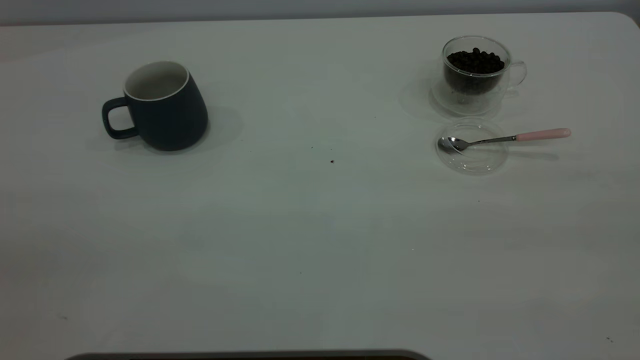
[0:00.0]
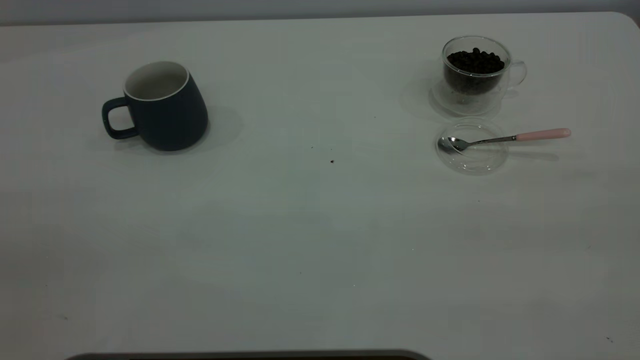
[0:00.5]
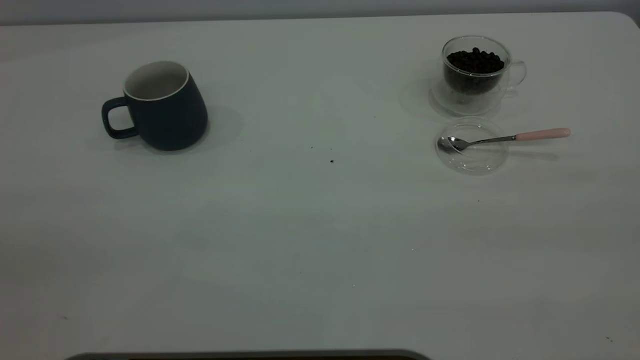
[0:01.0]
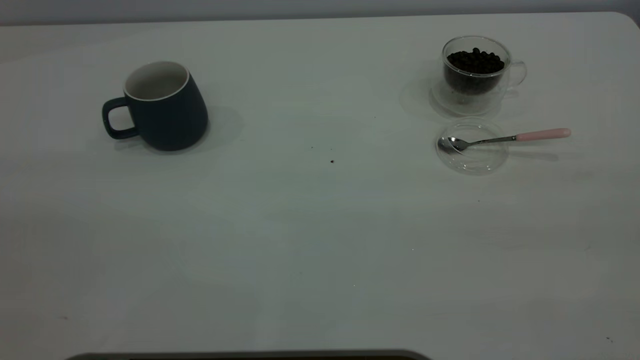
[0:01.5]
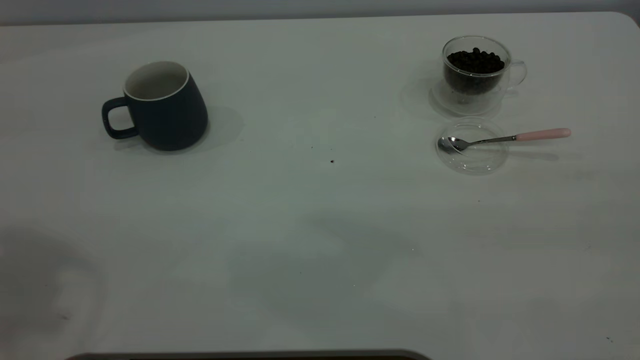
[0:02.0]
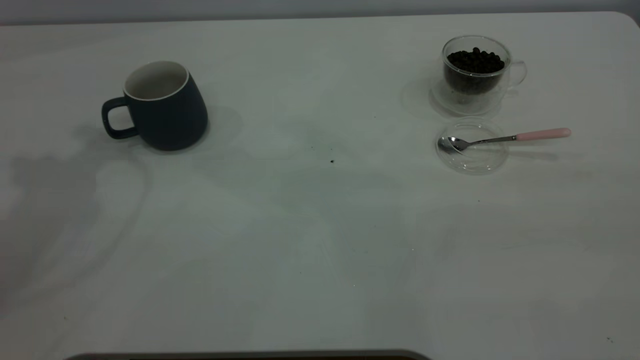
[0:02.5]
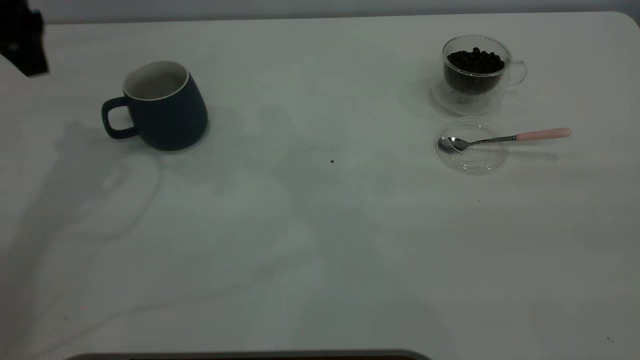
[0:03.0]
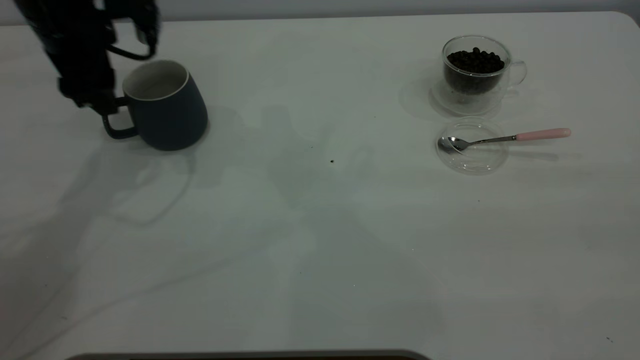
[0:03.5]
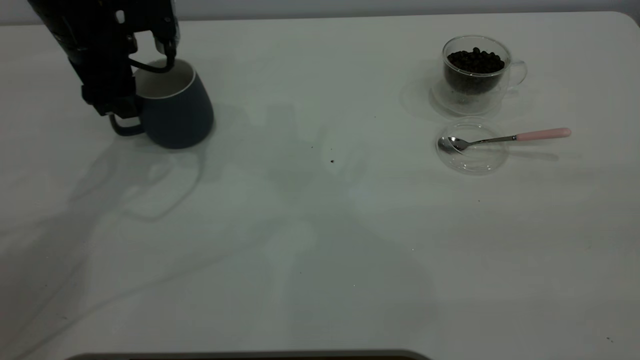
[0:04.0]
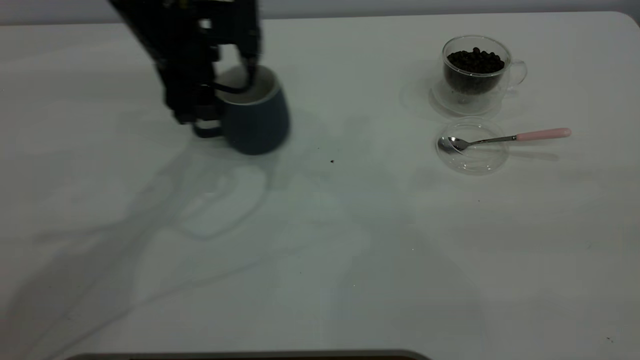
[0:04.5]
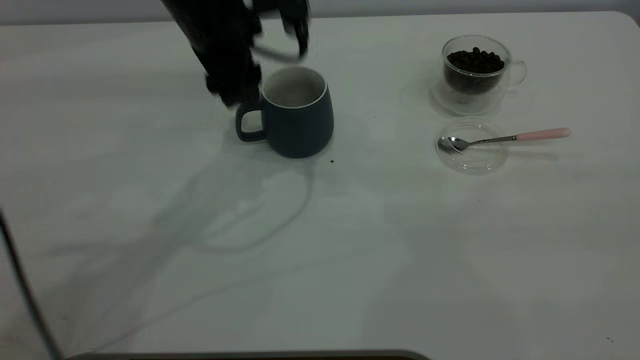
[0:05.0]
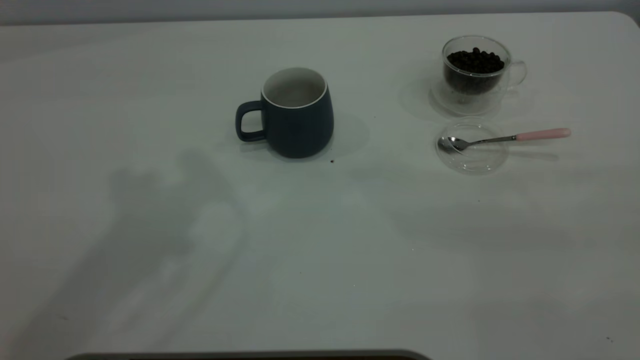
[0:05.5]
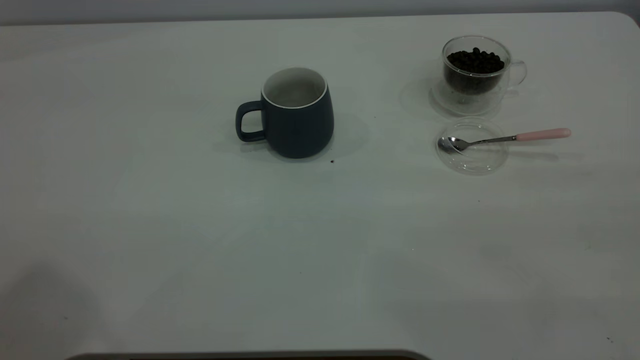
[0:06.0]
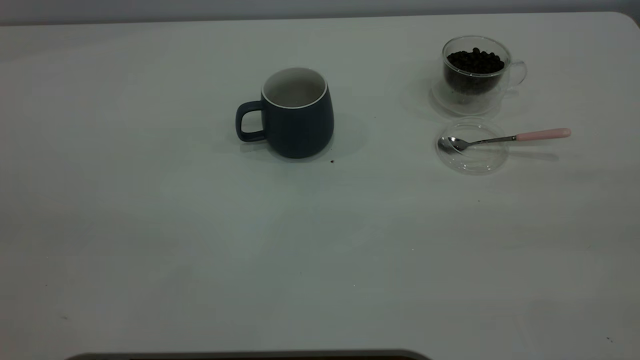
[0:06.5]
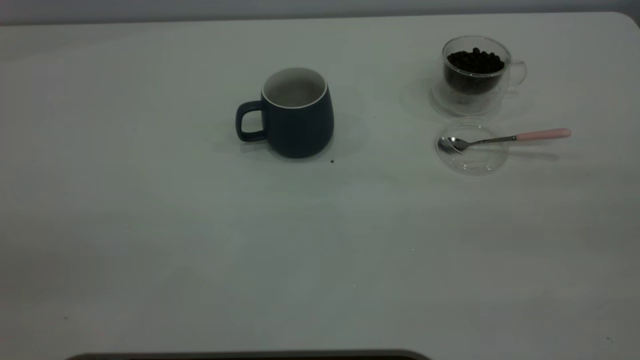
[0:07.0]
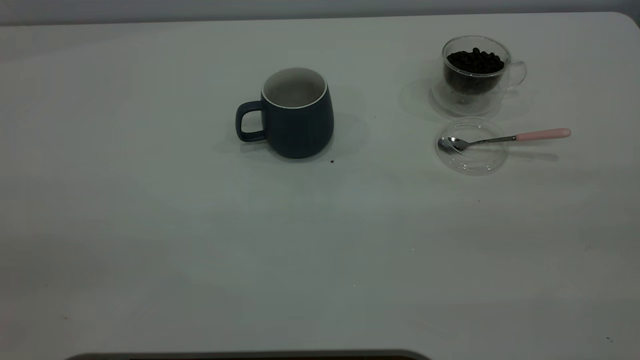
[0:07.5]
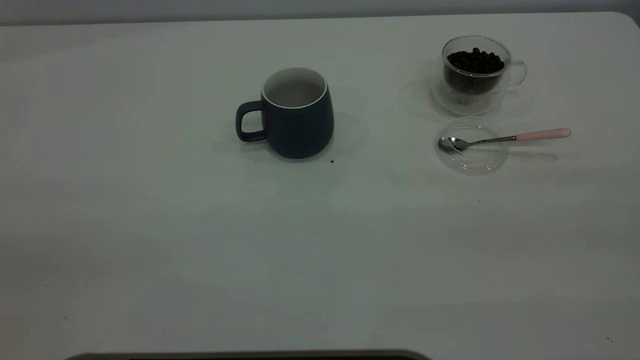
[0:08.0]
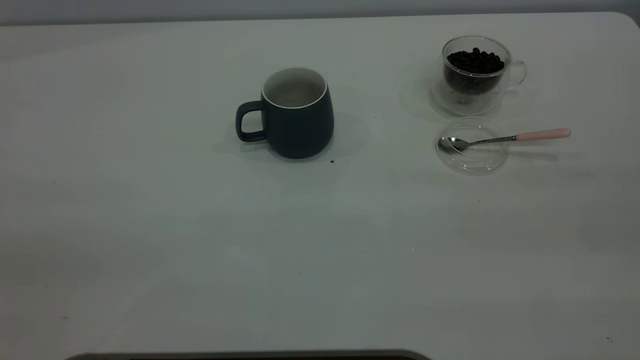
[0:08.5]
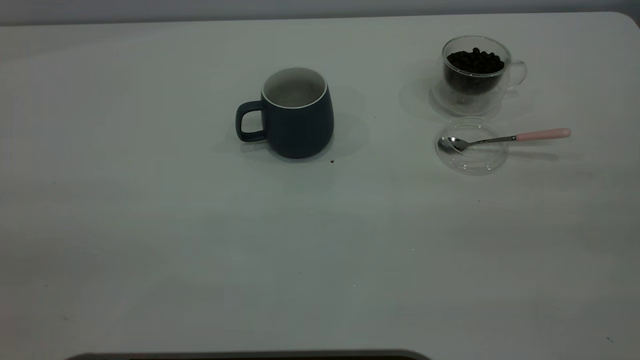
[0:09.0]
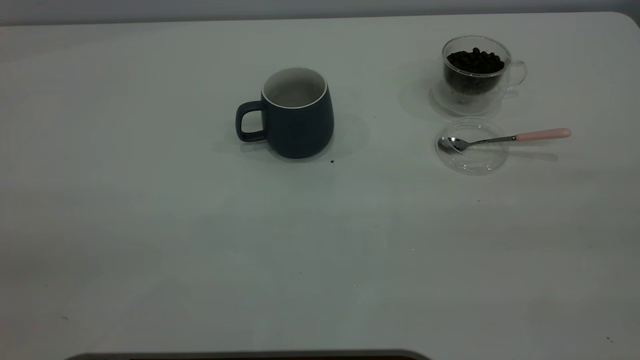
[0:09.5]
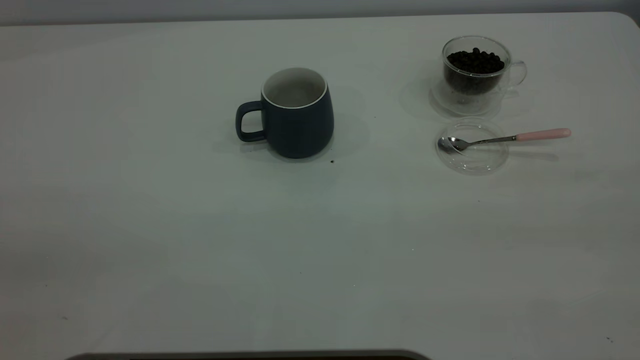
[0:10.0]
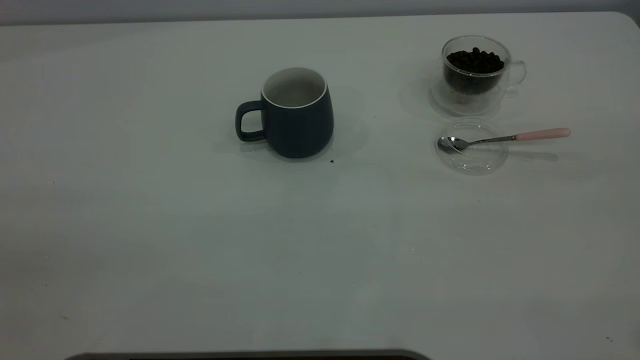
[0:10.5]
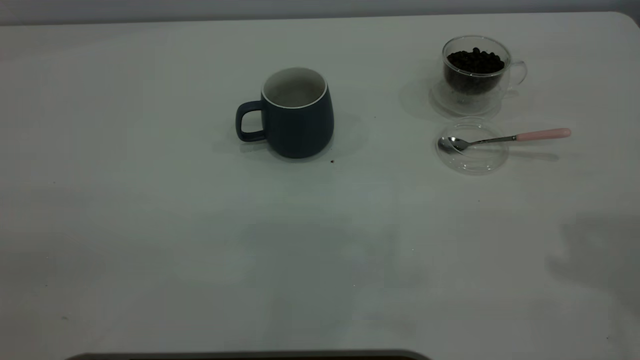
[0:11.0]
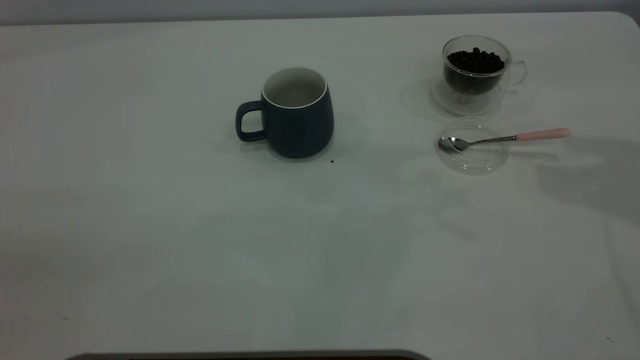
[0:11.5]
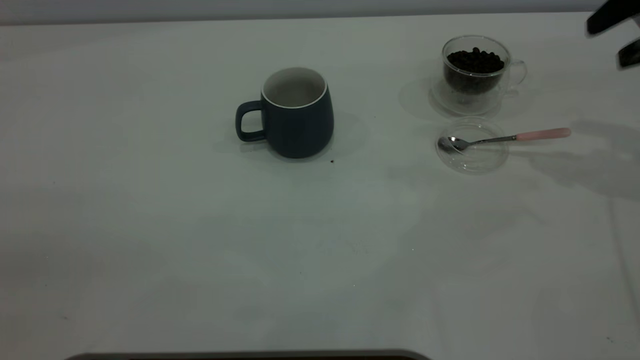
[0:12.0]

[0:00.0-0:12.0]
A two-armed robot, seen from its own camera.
Task of the whole recording: the left gripper place the grey cup in the center of the table, the right gripper take the pink spoon from the cup lid and scoop out the coffee beans from the coffee cup and put them into the grey cup, the right gripper put the spoon back into the cup lid.
Step, 0:00.0 to 0:05.0: Move the cup to the center of view.
0:02.0 to 0:04.0: The left gripper goes approximately 35 cm downward and forward.
0:04.0 to 0:06.0: The left gripper is displaced upward and backward by approximately 50 cm.
0:10.0 to 0:12.0: The right gripper goes about 40 cm forward and downward.

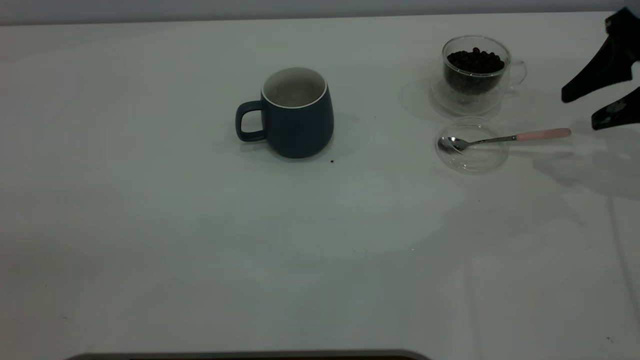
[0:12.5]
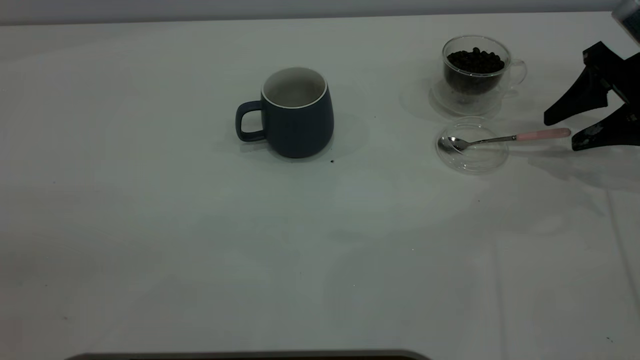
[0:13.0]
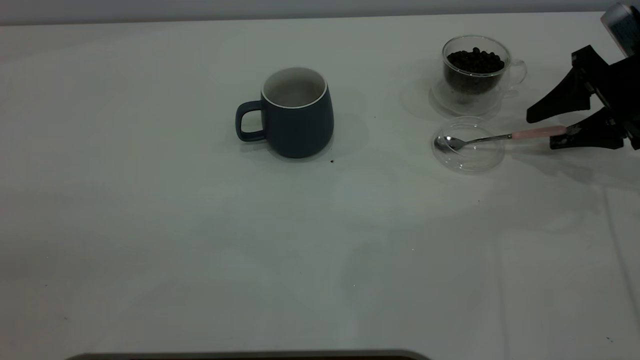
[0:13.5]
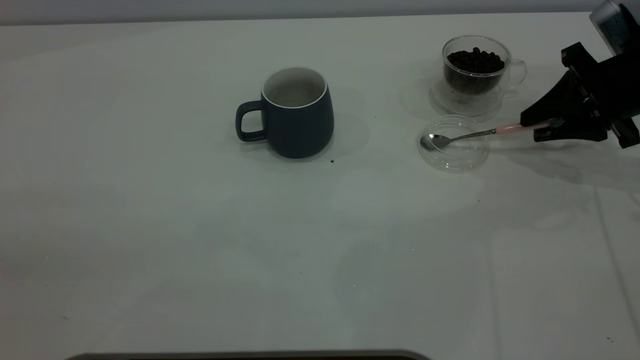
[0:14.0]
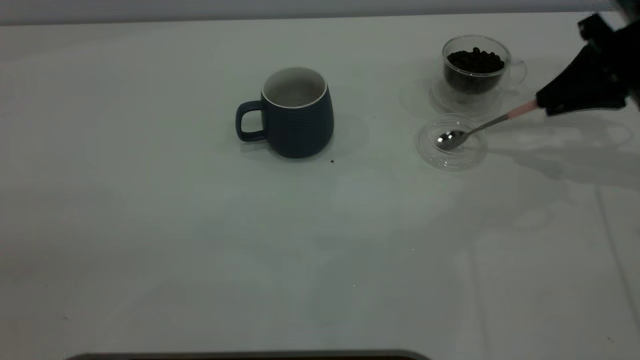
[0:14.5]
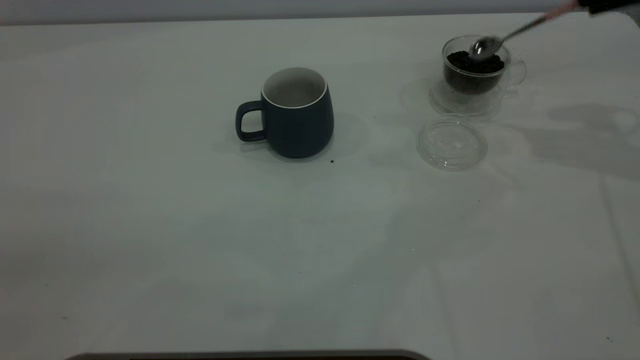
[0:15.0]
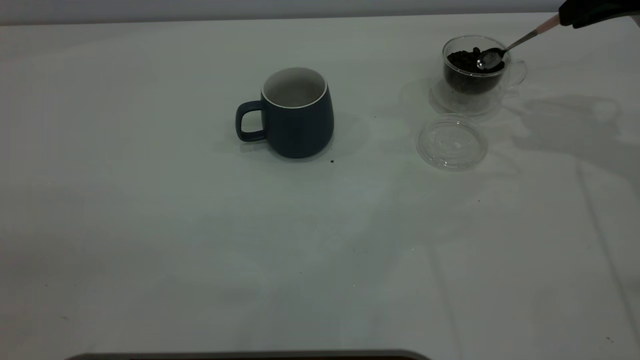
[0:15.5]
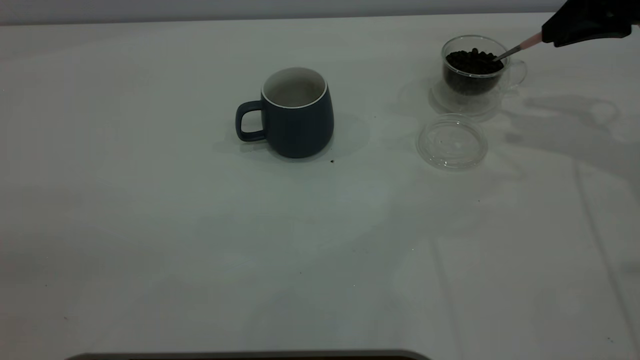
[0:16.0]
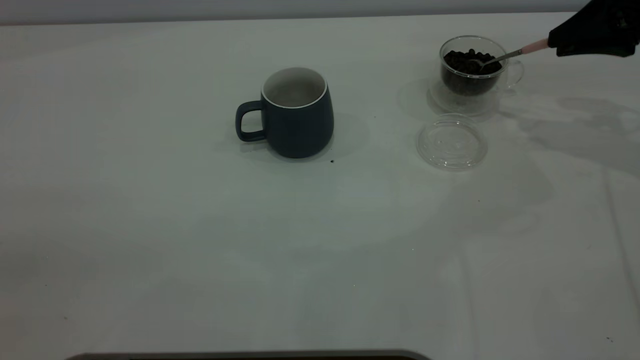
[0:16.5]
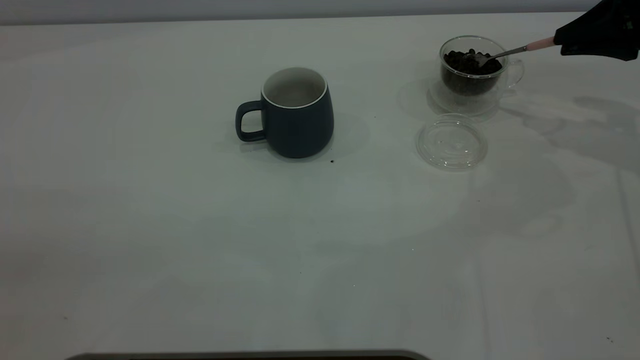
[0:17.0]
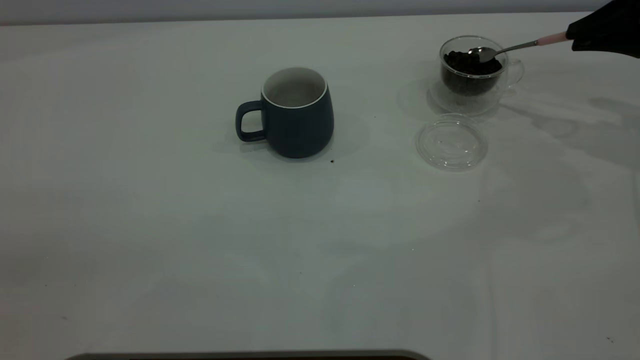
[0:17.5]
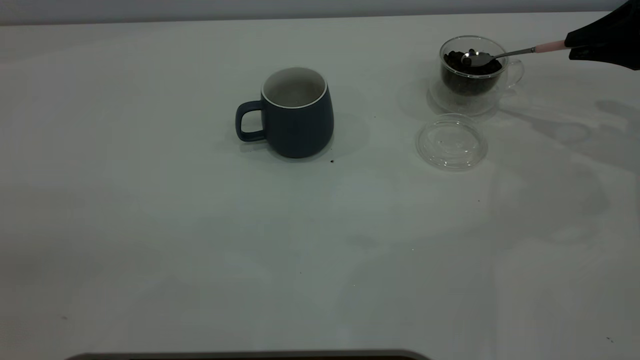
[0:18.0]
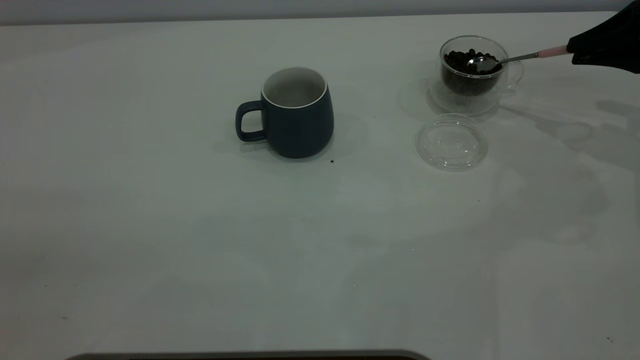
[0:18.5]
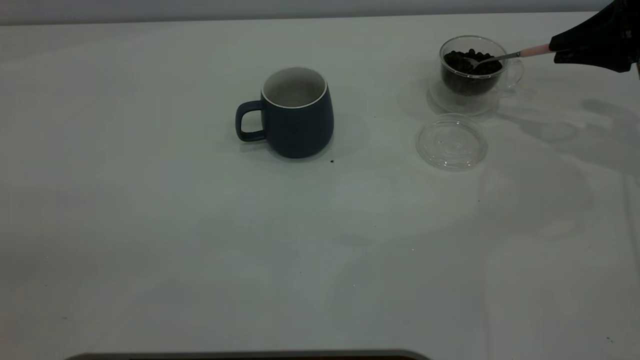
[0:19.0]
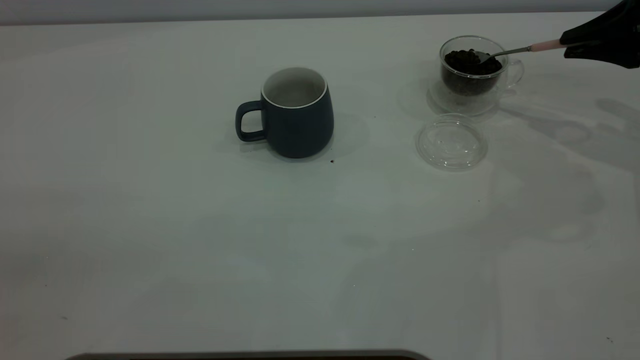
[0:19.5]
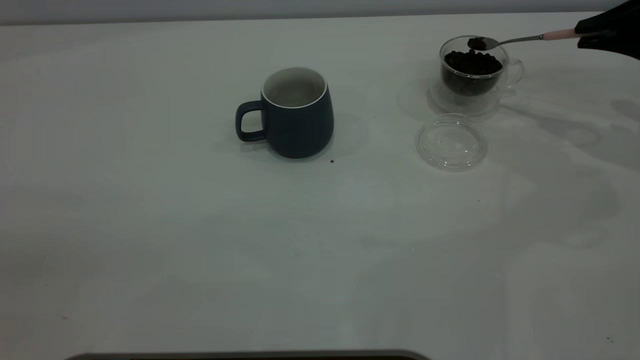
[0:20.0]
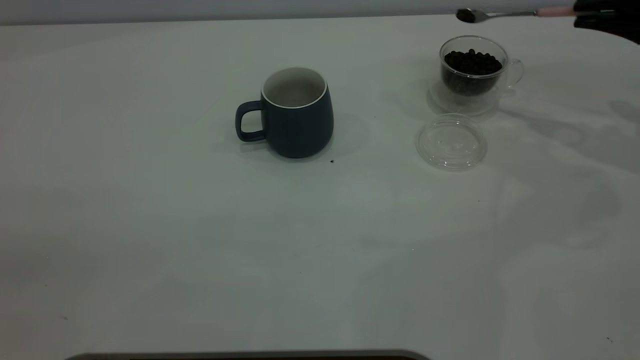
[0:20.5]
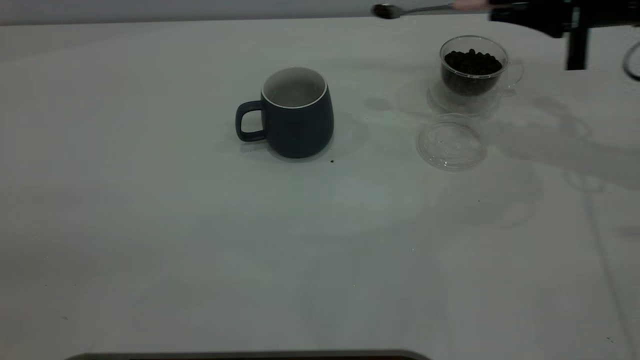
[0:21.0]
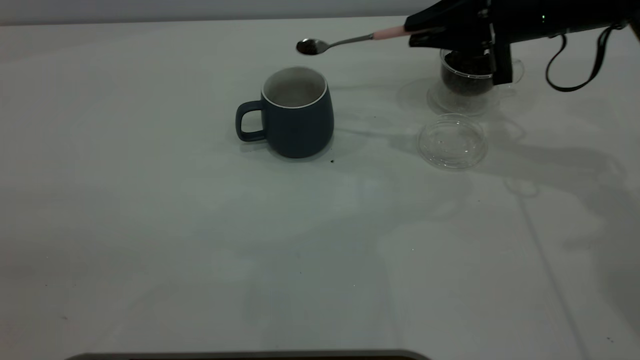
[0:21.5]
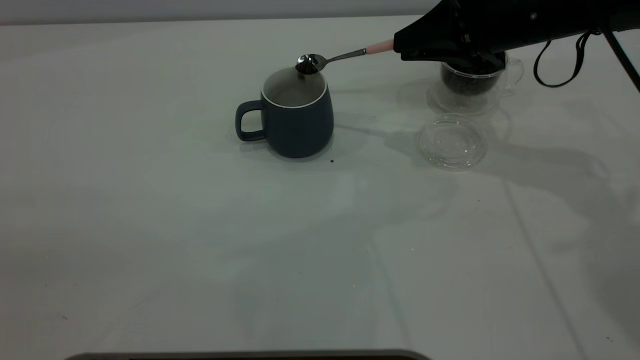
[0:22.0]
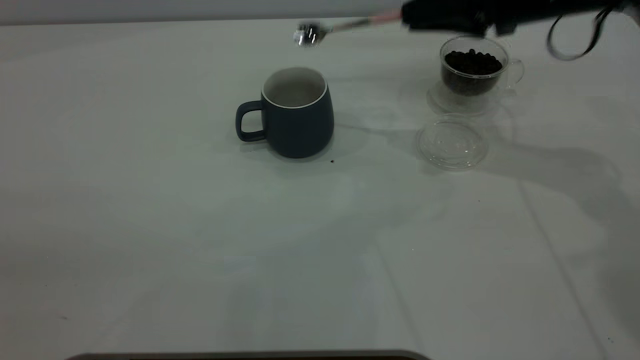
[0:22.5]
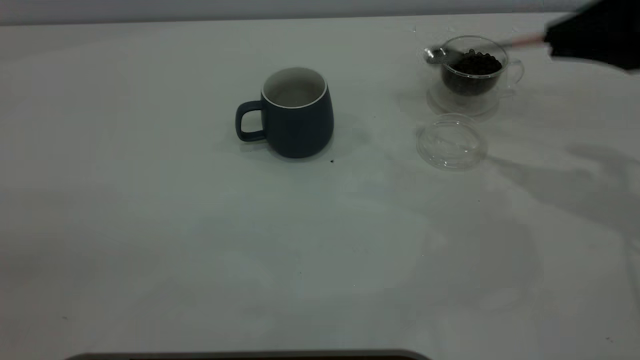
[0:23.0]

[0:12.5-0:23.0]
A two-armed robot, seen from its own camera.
Task of the whole recording: the left gripper place the grey cup in the center of the table, the right gripper take the pink spoon from the cup lid and scoop out the coffee beans from the coffee cup and put them into the grey cup, the right gripper put the spoon back into the cup lid.
Step, 0:12.5 to 0:14.5: Pick up the spoon.
Step, 0:15.0 to 0:22.0: Scoop a spoonful of beans into the cup.
0:12.5 to 0:14.5: The right gripper closes its fingers.
0:14.5 to 0:16.5: The right gripper moves approximately 10 cm upward and comes back.
0:16.5 to 0:19.0: The grippers stay close to where they were, moving slightly.
0:19.0 to 0:21.0: The right gripper goes about 5 cm to the left.
0:21.0 to 0:23.0: The right gripper moves backward, about 10 cm, and reaches some 10 cm to the left, then returns.
